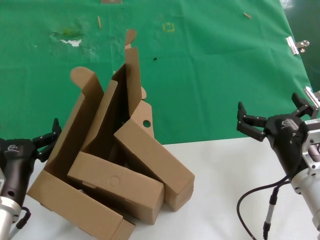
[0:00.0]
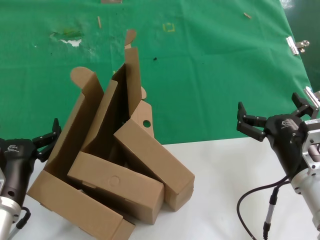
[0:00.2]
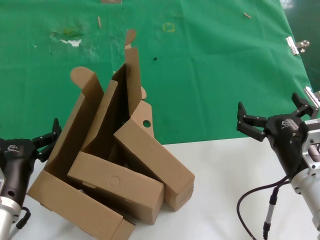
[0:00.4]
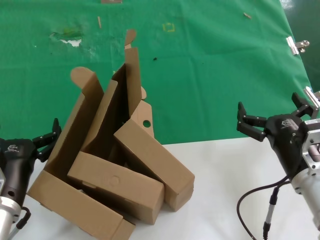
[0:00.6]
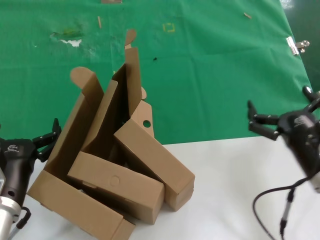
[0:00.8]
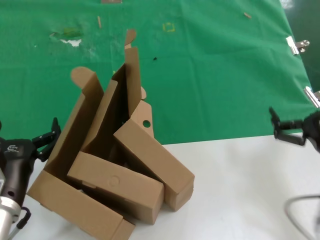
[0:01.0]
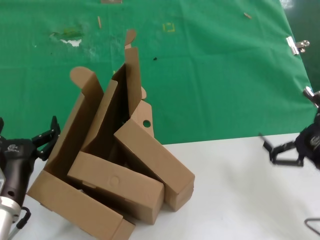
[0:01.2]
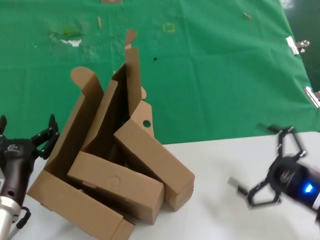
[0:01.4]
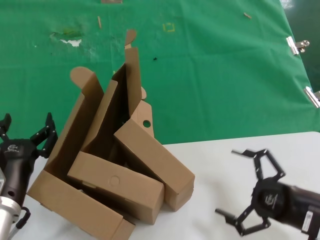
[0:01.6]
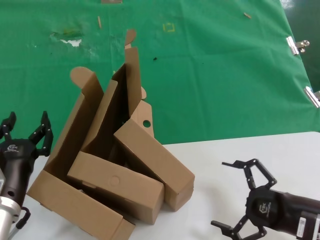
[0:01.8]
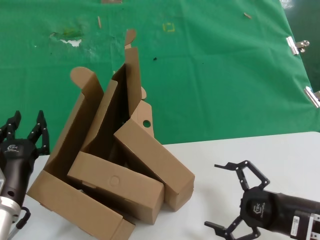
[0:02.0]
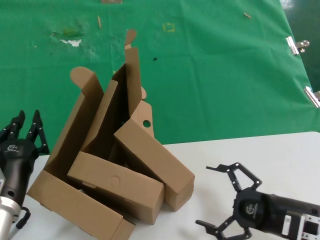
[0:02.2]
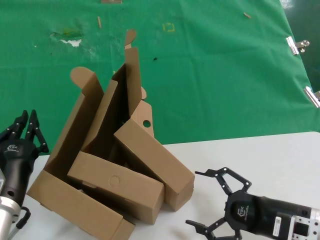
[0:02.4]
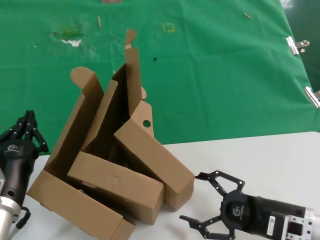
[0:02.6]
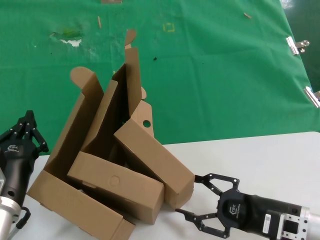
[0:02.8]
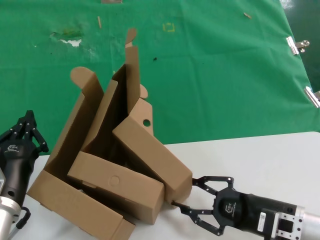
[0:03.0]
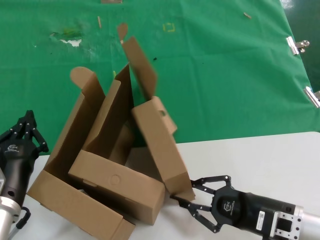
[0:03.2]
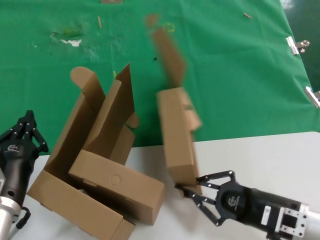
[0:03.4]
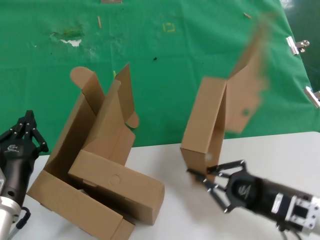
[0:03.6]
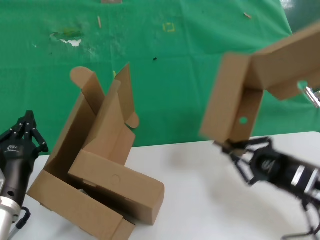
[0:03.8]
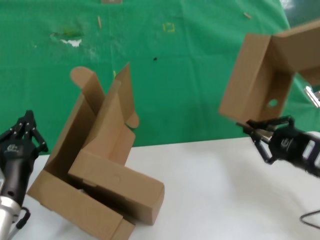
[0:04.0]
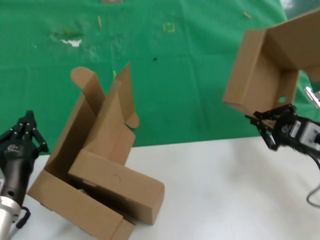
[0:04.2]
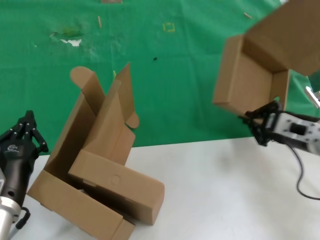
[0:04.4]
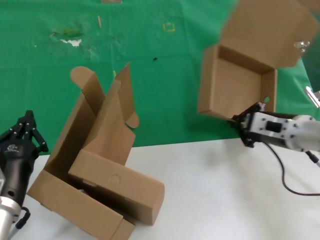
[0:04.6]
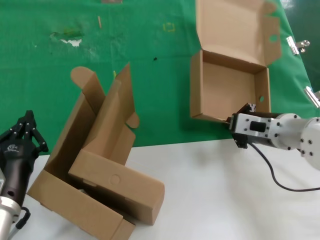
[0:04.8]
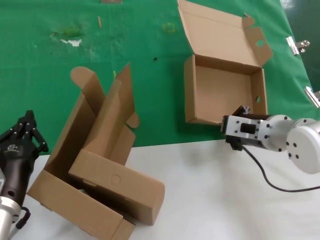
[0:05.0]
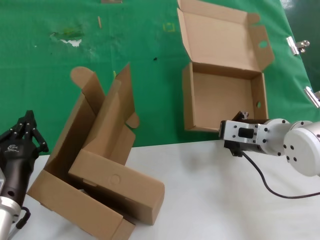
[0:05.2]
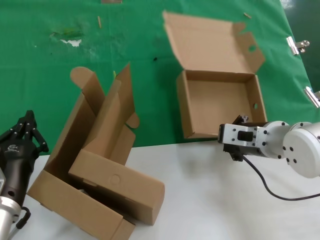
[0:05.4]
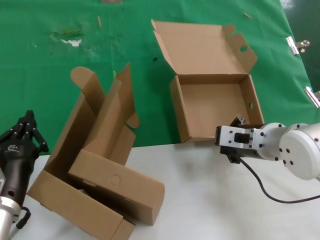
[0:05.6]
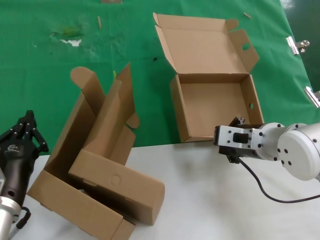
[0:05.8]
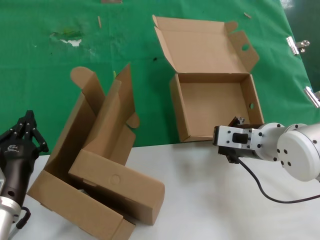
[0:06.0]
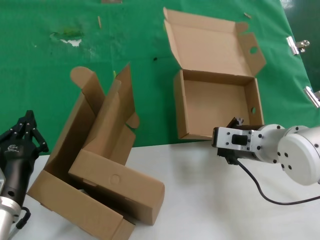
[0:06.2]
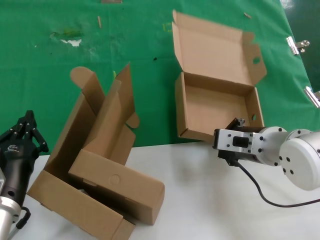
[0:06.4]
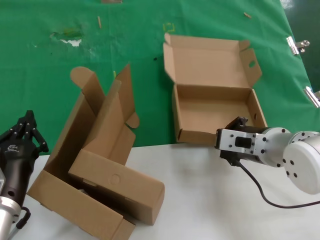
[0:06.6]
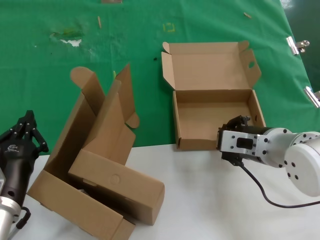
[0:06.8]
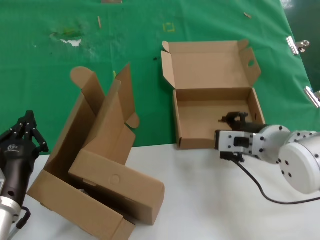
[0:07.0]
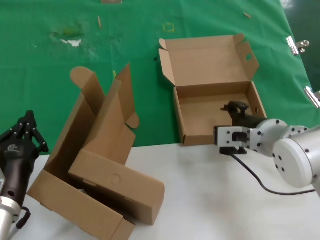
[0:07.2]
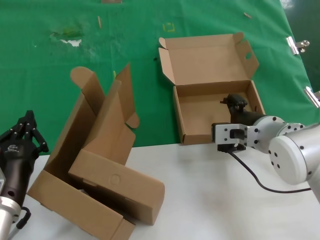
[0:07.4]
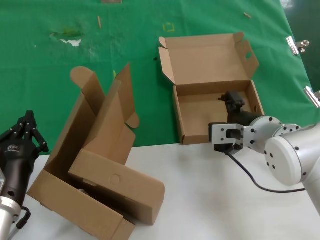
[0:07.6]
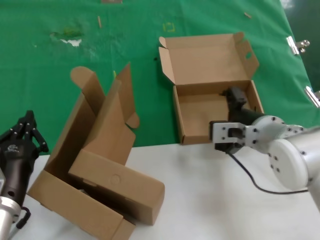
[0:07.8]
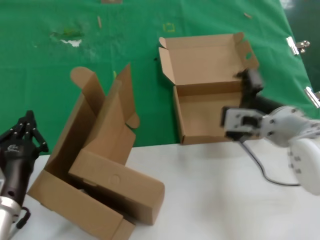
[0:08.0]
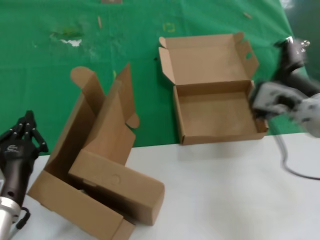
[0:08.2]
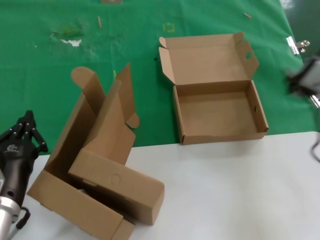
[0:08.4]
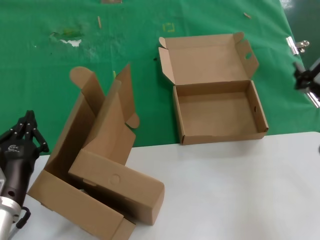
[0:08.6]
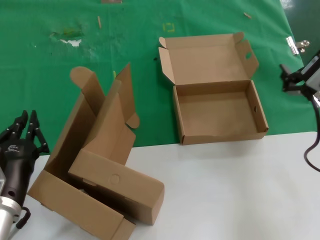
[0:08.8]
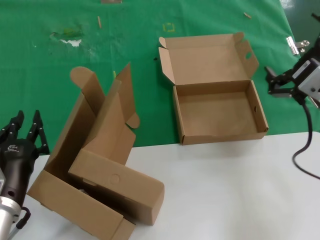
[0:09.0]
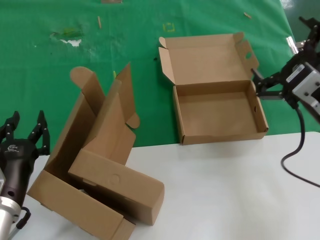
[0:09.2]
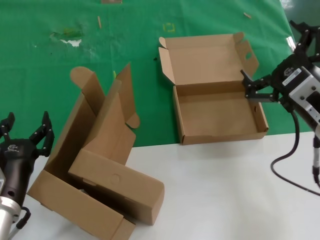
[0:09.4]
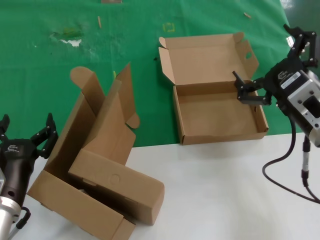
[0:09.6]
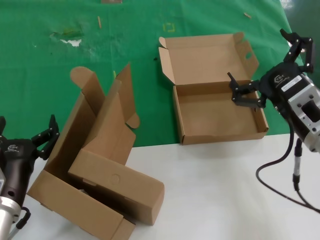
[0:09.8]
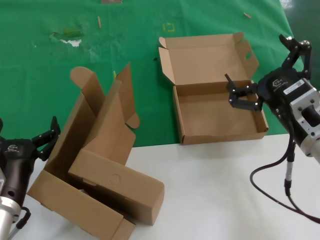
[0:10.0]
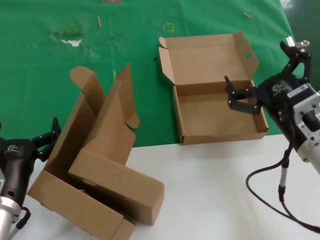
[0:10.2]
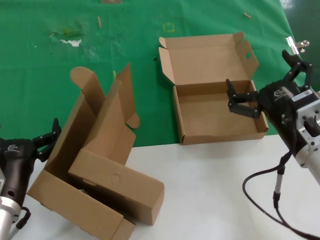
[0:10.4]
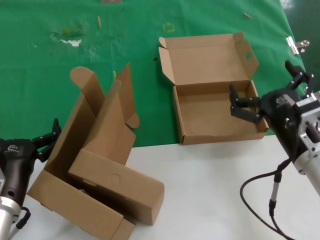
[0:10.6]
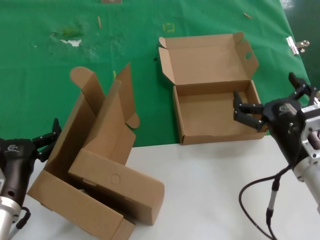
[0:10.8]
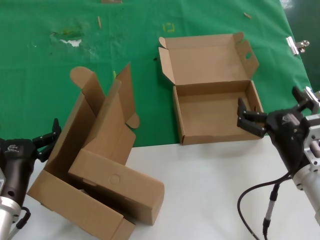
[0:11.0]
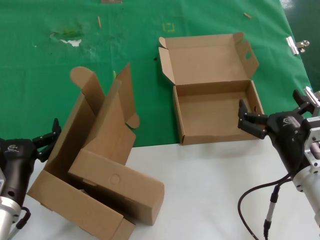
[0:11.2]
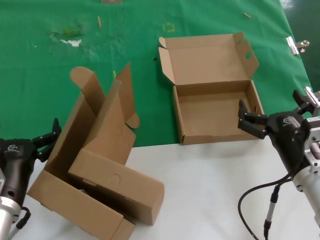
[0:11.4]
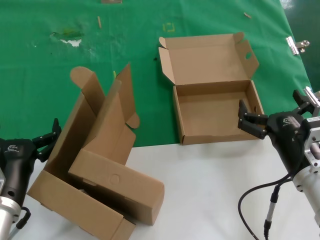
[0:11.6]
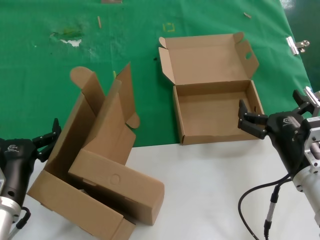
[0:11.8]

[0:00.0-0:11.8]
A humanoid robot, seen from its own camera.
Task of the whole recording: pick up the paper box and put it at the back.
Step, 0:00.0 to 0:03.4: Grasp the paper box.
Step, 0:03.6 to 0:07.8: Place the paper box on the table.
0:00.0 to 0:01.4: The right hand goes some 10 cm to the right.
0:01.4 to 0:03.0: The right hand moves to the left and downward, about 10 cm.
0:03.0 to 0:04.4: The right hand is displaced upward and forward by some 15 cm.
0:04.4 to 0:06.0: The right hand heads to the left, covering about 15 cm.
0:06.0 to 0:07.4: The hands move only a little.
0:07.4 to 0:08.8: The right hand is displaced backward, upward and to the right by approximately 15 cm.
0:08.8 to 0:10.4: The right hand is displaced downward by approximately 10 cm.
0:10.4 to 0:11.8: The right hand is displaced downward by about 5 cm.
